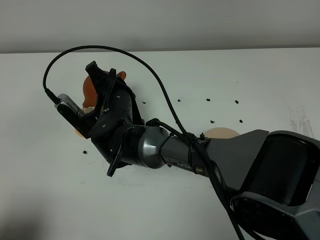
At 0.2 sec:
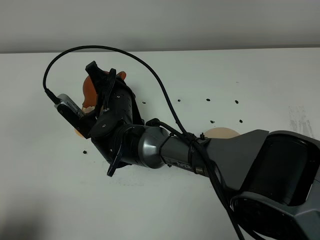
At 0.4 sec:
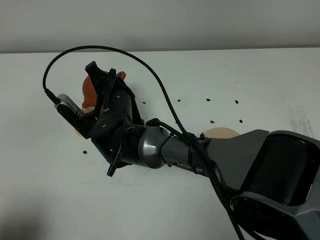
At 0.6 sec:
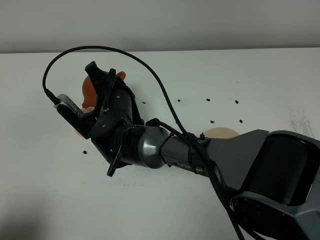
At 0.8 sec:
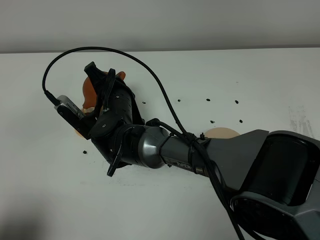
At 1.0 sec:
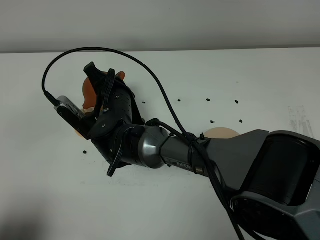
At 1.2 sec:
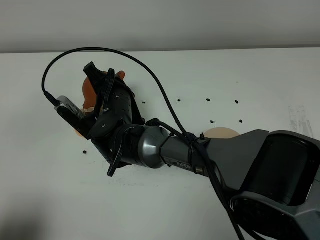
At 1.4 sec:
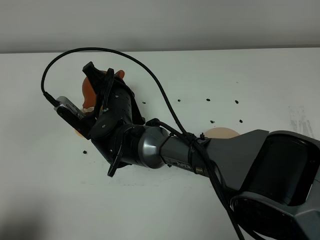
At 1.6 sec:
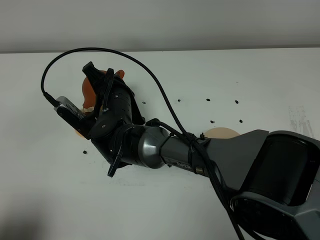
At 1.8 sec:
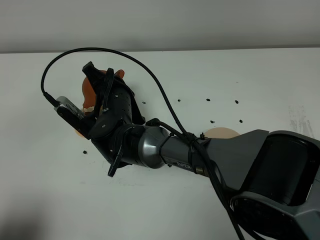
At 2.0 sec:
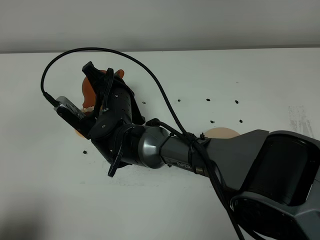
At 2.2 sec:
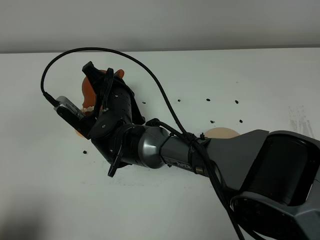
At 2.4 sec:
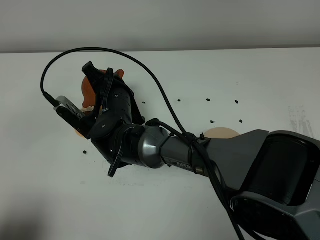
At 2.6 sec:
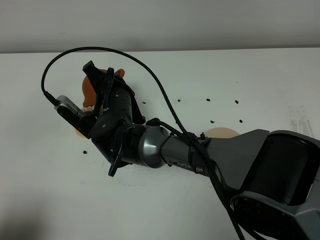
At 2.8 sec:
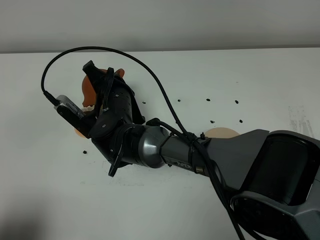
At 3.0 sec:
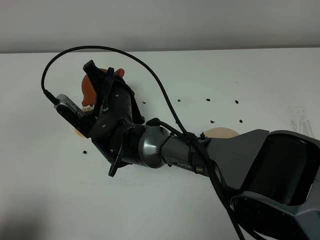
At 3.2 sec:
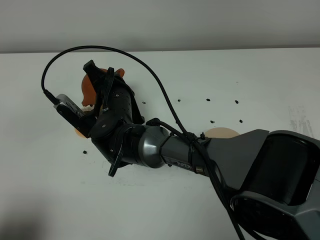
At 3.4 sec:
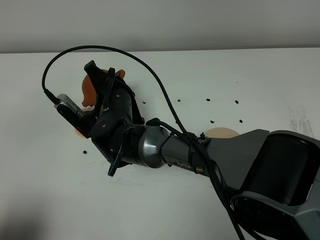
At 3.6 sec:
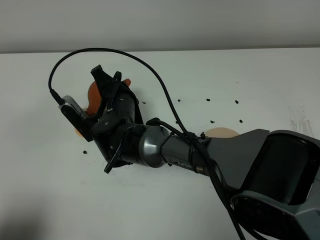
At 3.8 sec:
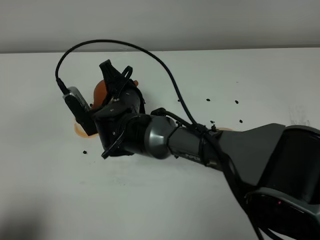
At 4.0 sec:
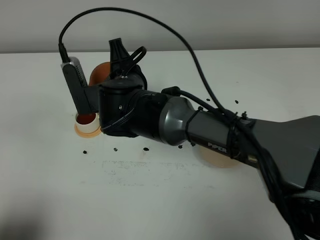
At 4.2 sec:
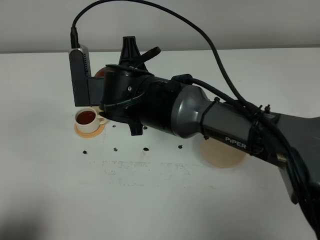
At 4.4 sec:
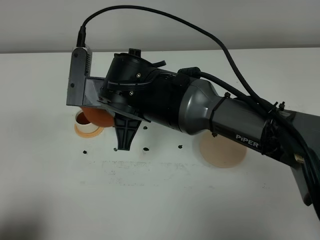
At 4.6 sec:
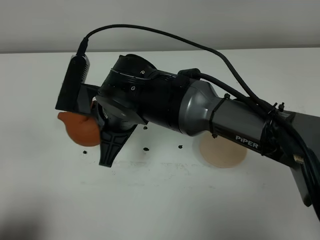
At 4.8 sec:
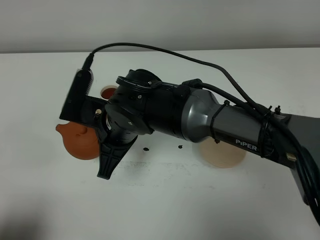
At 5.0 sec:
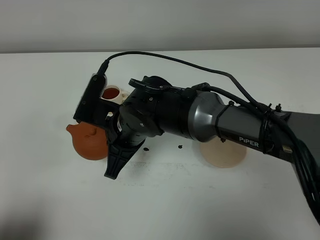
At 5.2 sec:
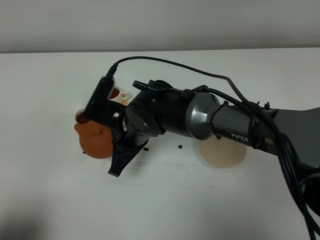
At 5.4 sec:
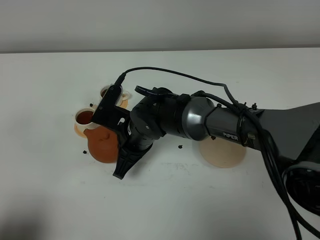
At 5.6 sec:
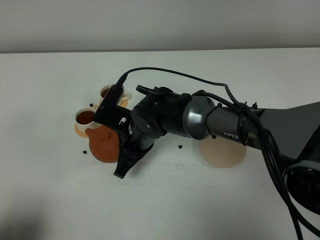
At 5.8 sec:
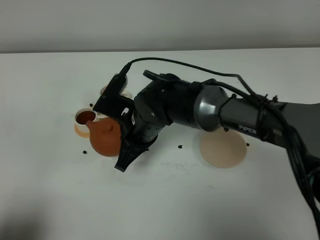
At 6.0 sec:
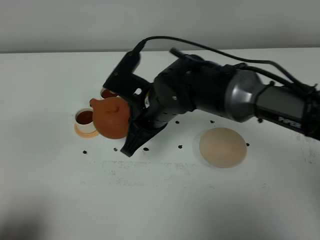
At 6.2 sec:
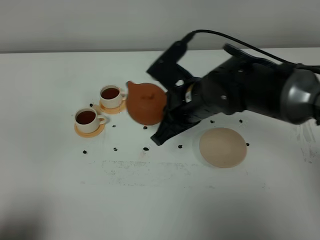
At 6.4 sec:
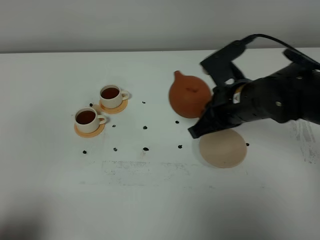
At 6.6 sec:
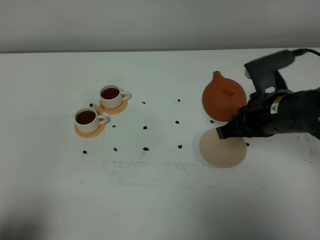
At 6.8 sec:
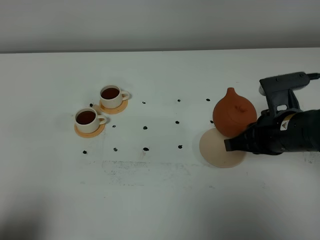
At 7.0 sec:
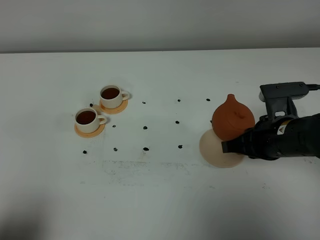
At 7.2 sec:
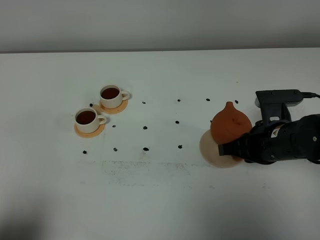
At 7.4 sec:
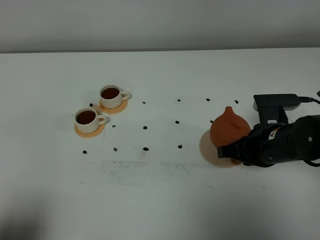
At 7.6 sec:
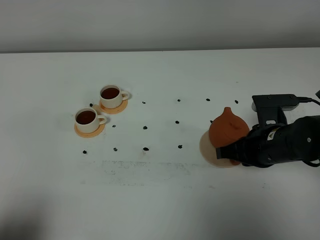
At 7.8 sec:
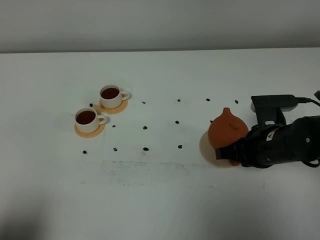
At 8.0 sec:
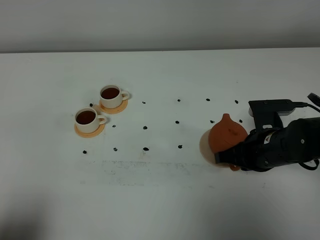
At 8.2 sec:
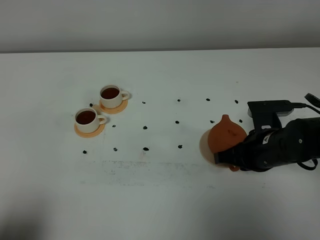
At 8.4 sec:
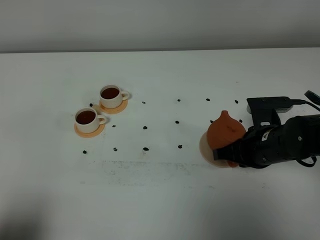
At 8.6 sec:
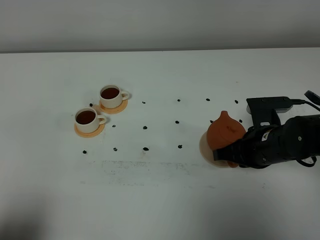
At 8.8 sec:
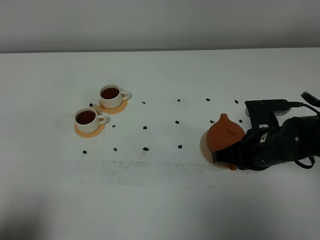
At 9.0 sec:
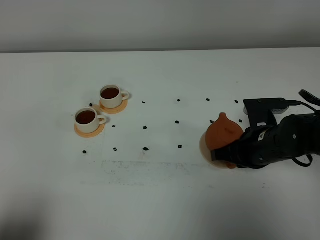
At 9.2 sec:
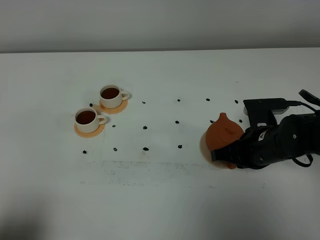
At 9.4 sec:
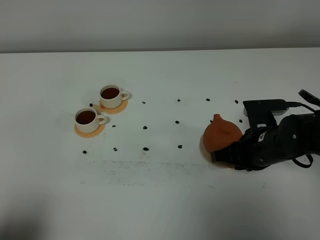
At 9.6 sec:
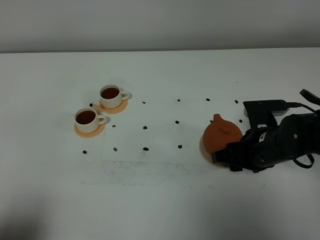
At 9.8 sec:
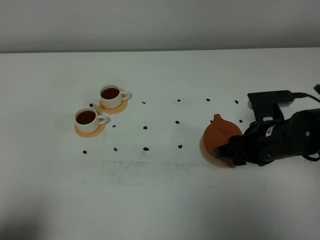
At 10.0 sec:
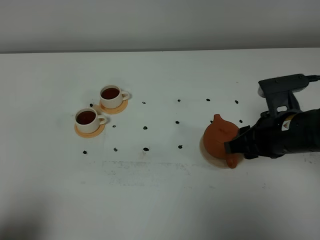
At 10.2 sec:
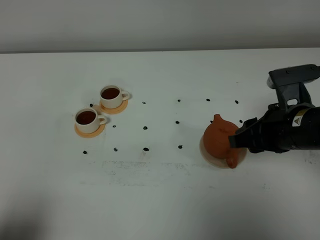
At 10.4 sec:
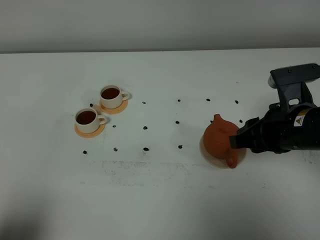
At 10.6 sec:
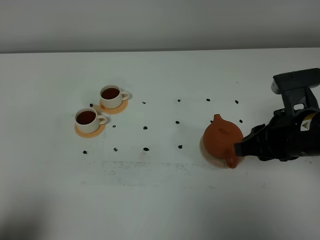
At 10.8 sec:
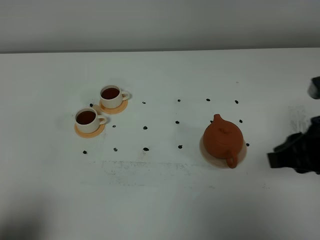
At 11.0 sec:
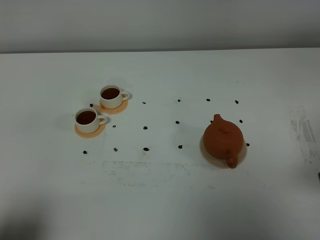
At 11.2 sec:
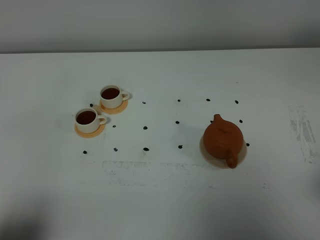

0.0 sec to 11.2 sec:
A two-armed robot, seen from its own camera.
Task of the whole recording: grasp the brown teapot and pour the tea into the two white teacups one by one, put the brown teapot back in its original place.
Step, 0.0 sec to 3.8 sec: Pour tea into the teacup with the right gripper.
0.0 sec to 3.2 sec: The two grippers keep their place.
3.2 sec to 4.8 sec: The right gripper heads backward and upward, covering approximately 10 cm.
4.8 sec to 6.4 sec: The right gripper goes some 20 cm to the right.
6.4 sec to 8.0 sec: The right gripper shifts some 10 cm downward.
8.0 sec to 9.6 sec: The right gripper opens.
9.6 sec to 11.2 sec: The right gripper goes roughly 30 cm backward, upward and to the right, and closes up.

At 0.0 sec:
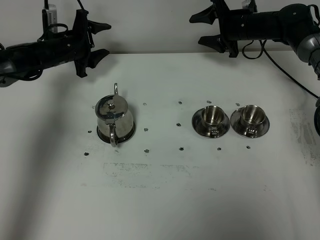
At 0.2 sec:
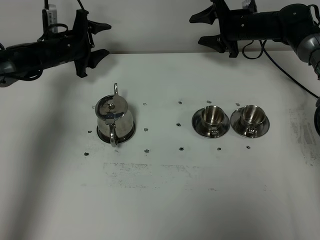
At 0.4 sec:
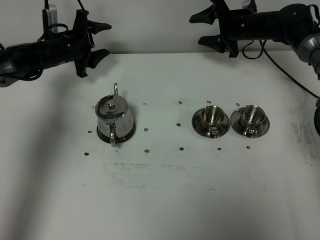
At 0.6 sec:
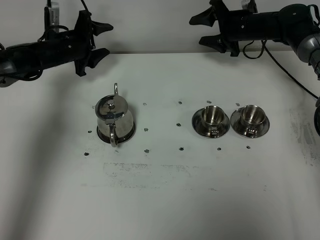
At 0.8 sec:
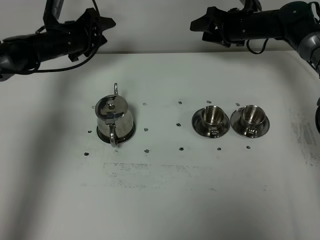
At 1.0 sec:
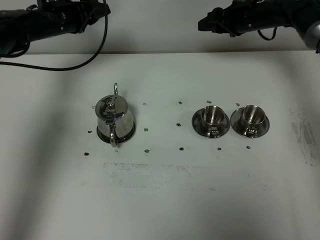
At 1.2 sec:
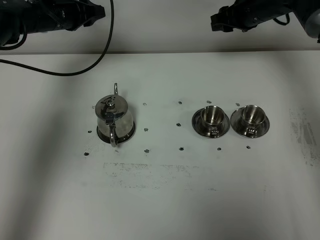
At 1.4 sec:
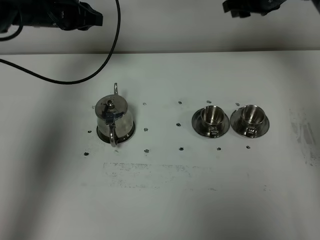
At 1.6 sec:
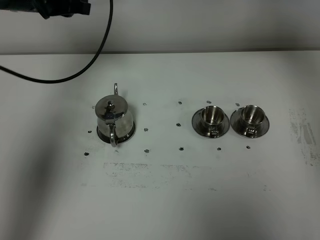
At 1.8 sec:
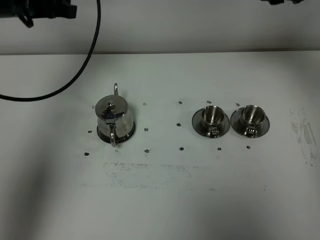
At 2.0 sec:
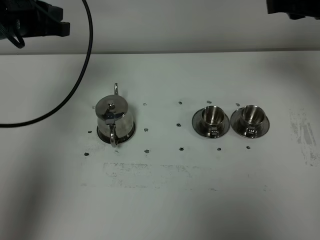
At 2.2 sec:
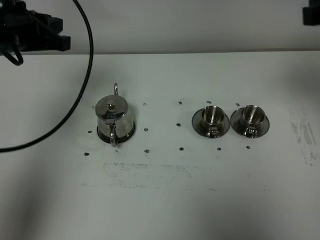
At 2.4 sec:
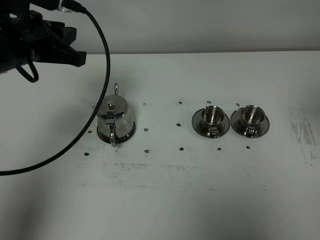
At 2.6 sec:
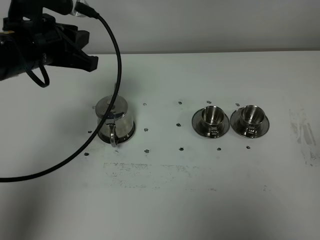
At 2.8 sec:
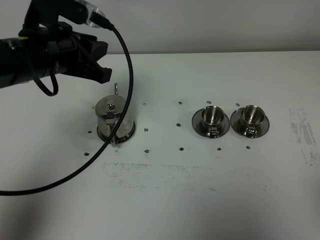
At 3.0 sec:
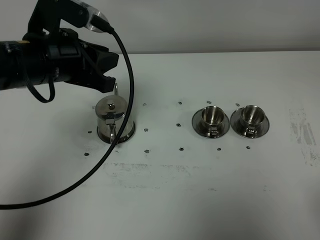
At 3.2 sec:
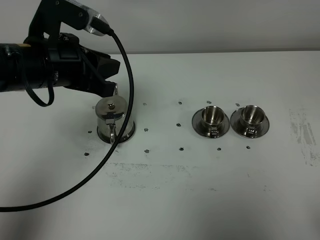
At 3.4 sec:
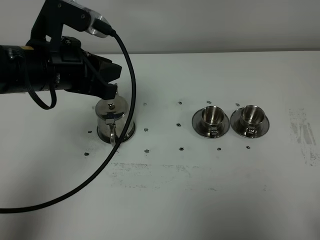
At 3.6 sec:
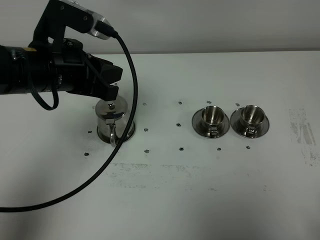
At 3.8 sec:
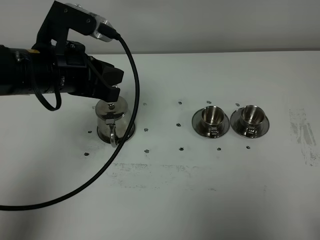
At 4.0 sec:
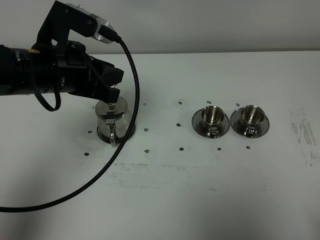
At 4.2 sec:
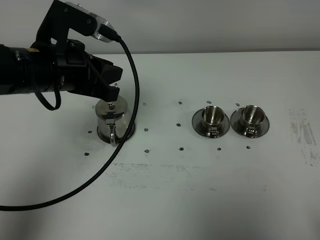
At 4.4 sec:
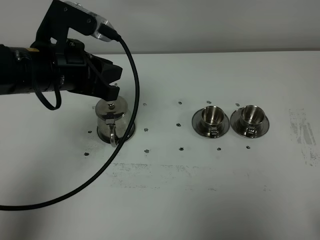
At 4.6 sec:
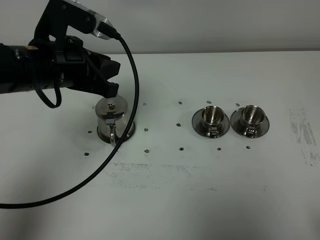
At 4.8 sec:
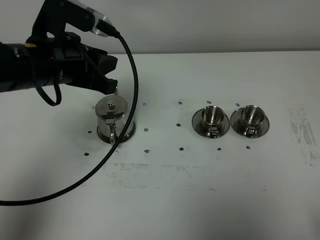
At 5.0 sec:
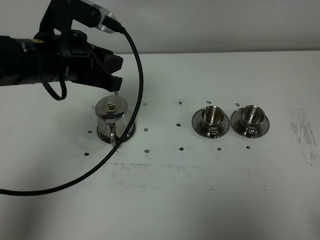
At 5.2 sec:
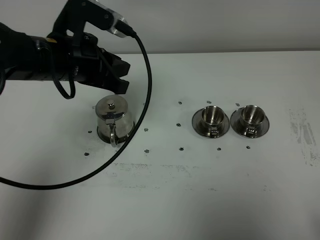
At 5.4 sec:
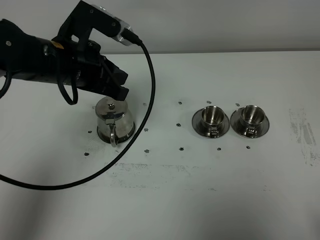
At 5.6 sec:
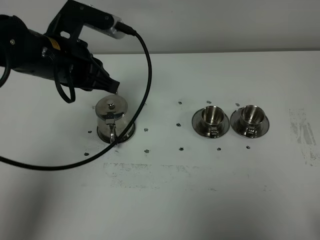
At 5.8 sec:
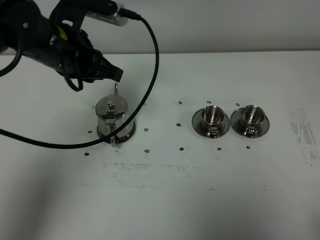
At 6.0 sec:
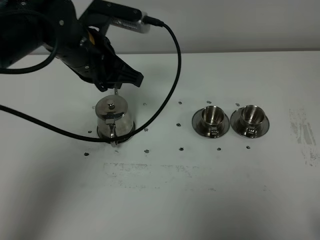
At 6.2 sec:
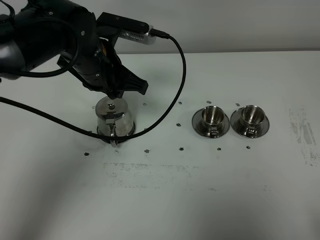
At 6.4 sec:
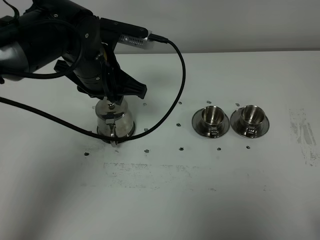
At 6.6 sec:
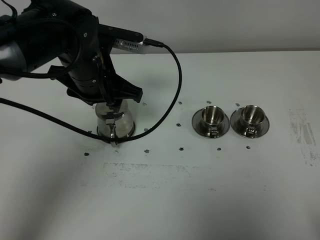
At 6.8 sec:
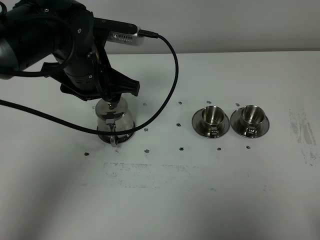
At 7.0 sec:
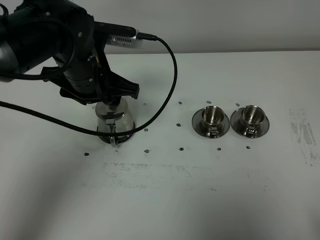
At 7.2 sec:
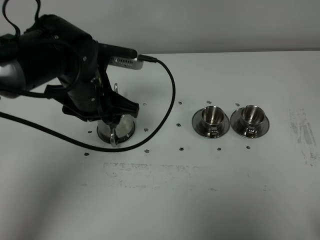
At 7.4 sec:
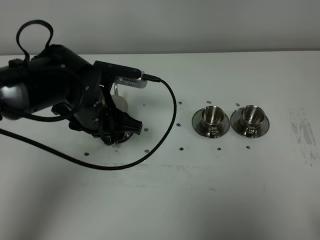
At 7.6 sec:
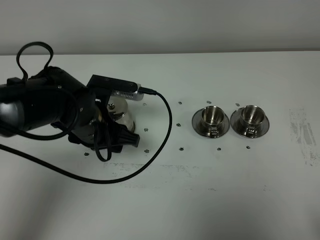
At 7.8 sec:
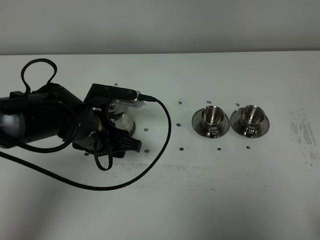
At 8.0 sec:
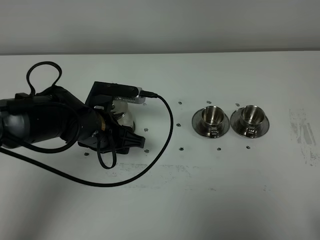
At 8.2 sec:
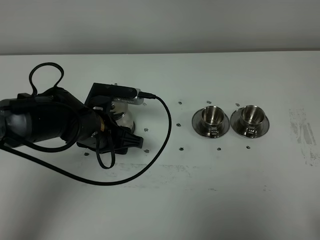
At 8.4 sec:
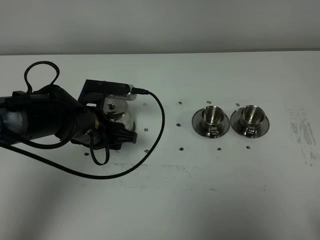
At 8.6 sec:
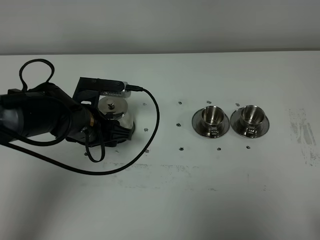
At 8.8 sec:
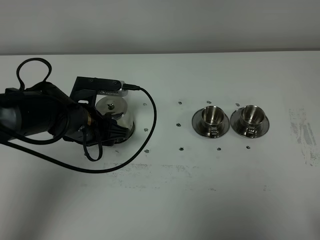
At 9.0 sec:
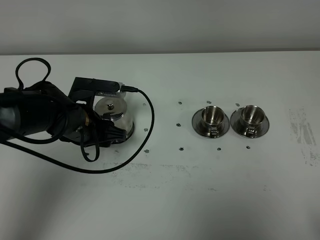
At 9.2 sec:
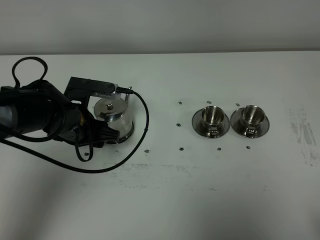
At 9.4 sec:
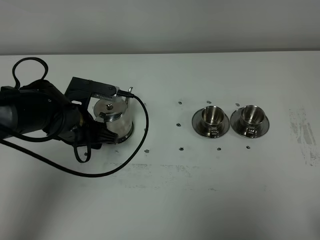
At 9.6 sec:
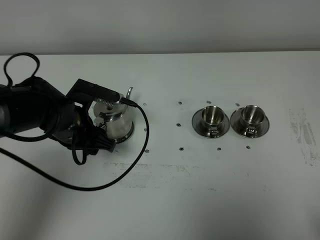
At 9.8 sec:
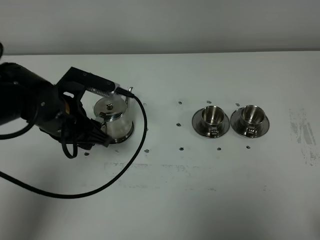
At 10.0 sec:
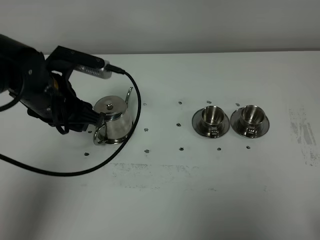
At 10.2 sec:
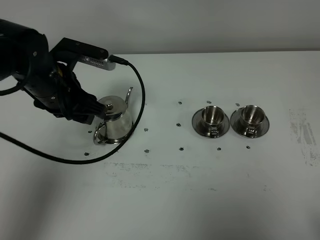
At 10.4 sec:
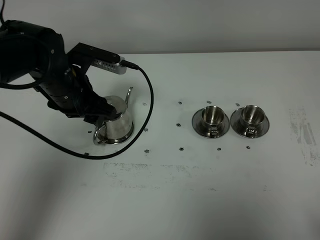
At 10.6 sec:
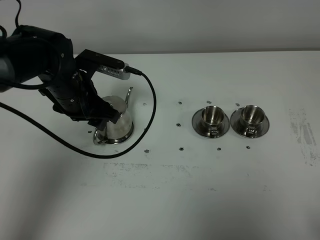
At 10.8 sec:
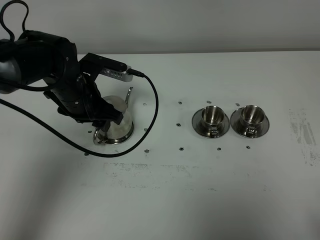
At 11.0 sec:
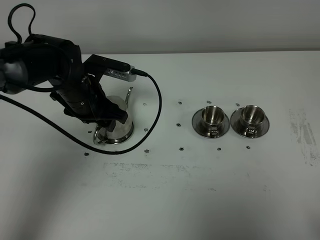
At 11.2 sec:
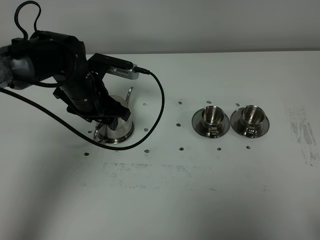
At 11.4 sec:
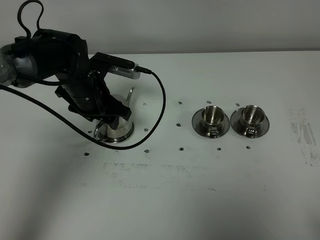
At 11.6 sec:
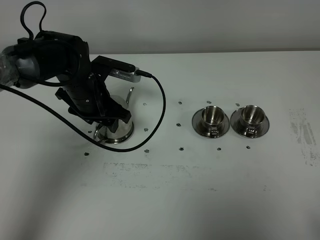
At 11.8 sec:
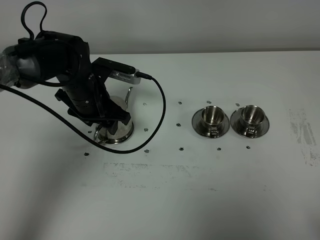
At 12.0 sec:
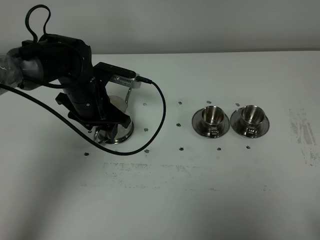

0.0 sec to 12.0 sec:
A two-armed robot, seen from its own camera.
Task of the whole recording: grasp the stainless steel teapot and pour the tea into the two stainless steel teacups one by one, put the stainless steel teapot back in its original place.
0.0 sec to 1.6 sec: The right gripper is displaced upward and backward by about 20 cm, and closes up. Meanwhile the left gripper is displaced upward by approximately 20 cm, and closes up.
1.6 sec to 3.0 sec: The left gripper is displaced backward by roughly 15 cm. Meanwhile the right gripper moves backward, some 50 cm.
3.0 sec to 4.4 sec: The right gripper goes some 5 cm downward.
4.4 sec to 6.0 sec: The left gripper heads to the right and forward, covering about 10 cm.
6.0 sec to 7.6 sec: The left gripper heads downward and backward, covering roughly 10 cm, and opens up.
7.6 sec to 9.0 sec: The grippers move only a little.
9.0 sec to 10.4 sec: The left gripper travels upward by some 5 cm.
10.4 sec to 12.0 sec: The left gripper goes some 5 cm downward.
